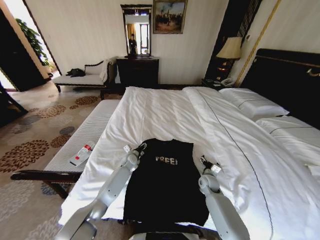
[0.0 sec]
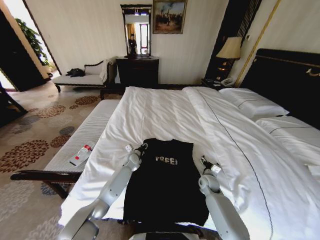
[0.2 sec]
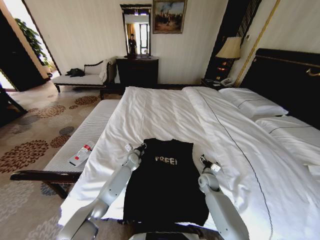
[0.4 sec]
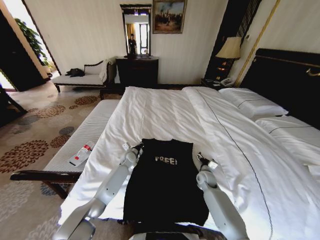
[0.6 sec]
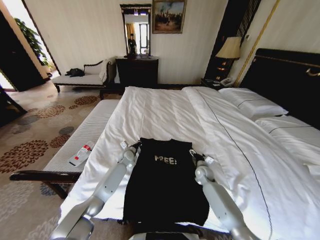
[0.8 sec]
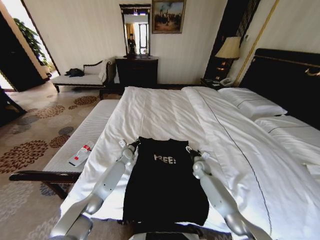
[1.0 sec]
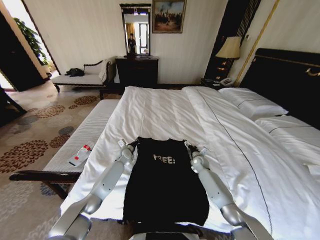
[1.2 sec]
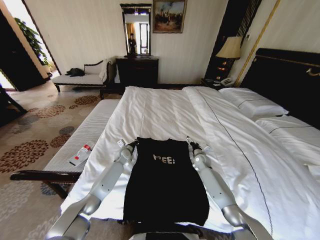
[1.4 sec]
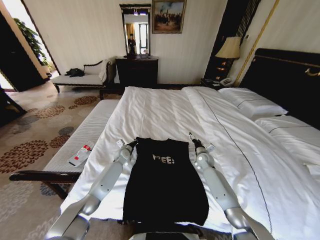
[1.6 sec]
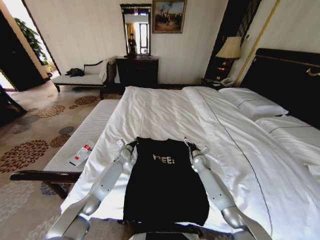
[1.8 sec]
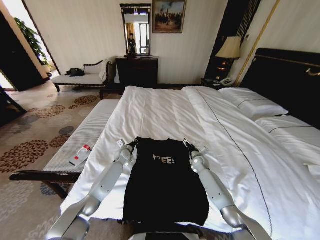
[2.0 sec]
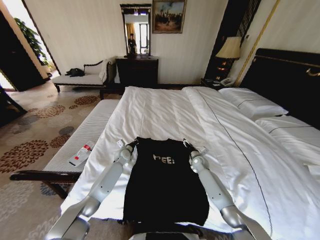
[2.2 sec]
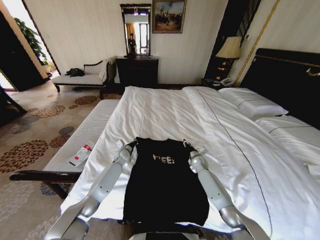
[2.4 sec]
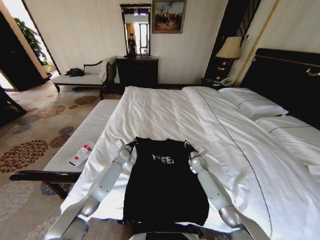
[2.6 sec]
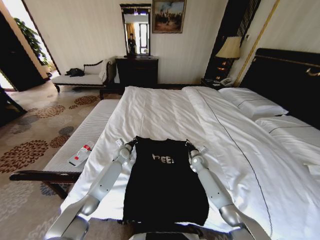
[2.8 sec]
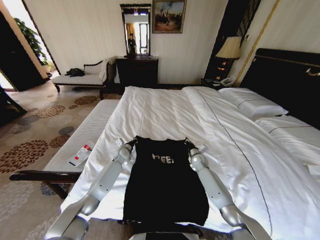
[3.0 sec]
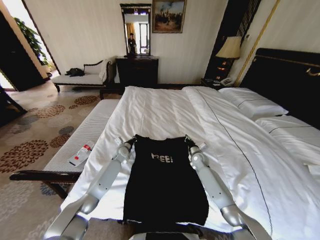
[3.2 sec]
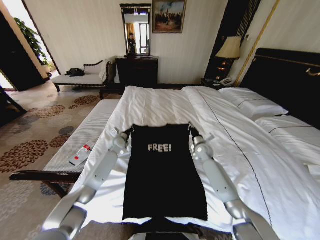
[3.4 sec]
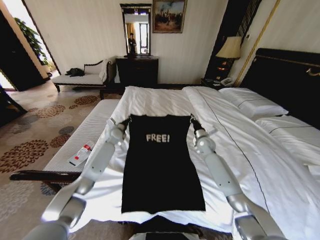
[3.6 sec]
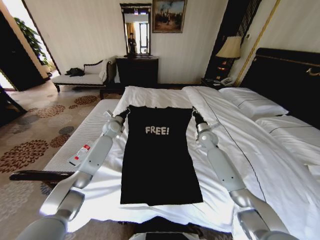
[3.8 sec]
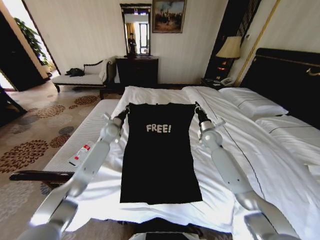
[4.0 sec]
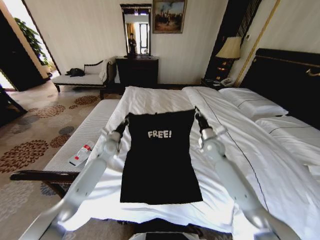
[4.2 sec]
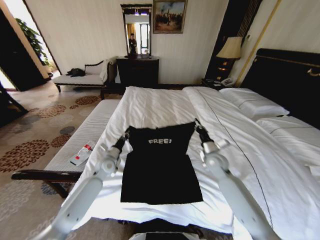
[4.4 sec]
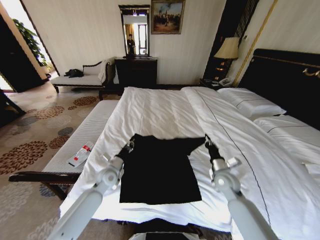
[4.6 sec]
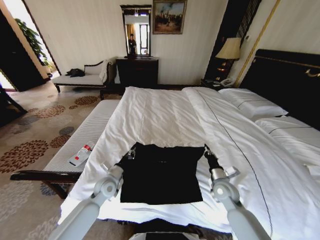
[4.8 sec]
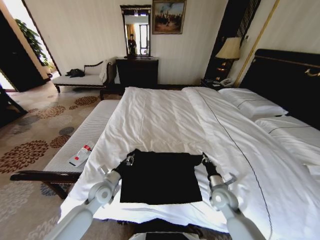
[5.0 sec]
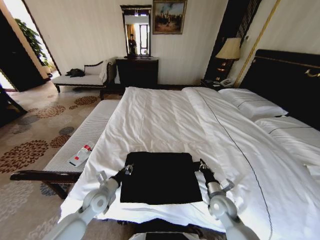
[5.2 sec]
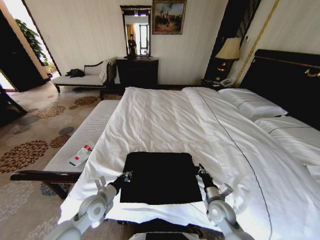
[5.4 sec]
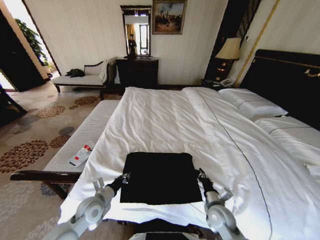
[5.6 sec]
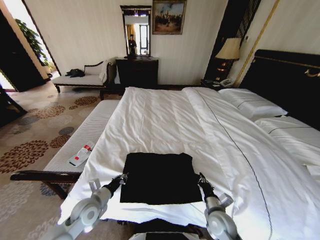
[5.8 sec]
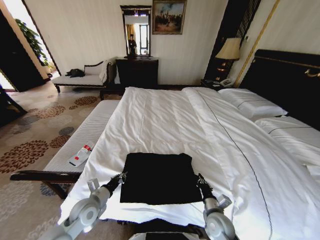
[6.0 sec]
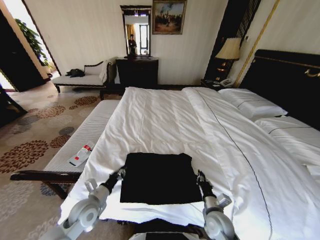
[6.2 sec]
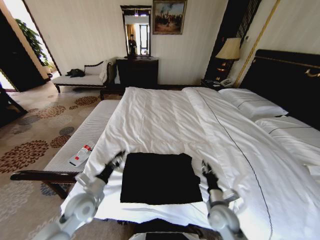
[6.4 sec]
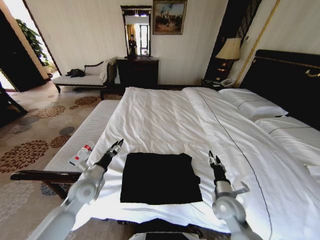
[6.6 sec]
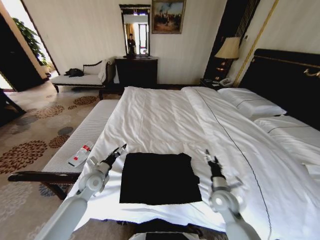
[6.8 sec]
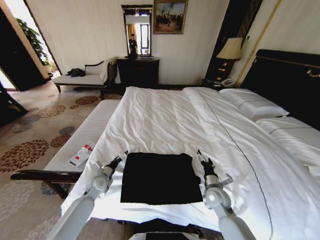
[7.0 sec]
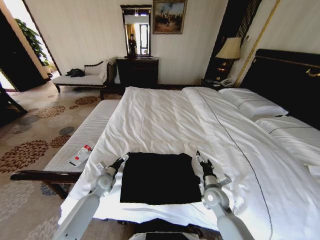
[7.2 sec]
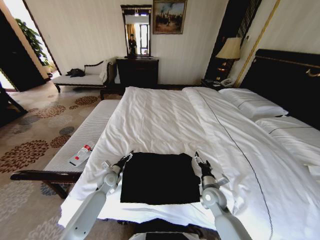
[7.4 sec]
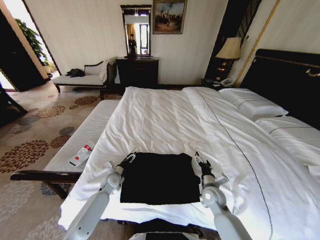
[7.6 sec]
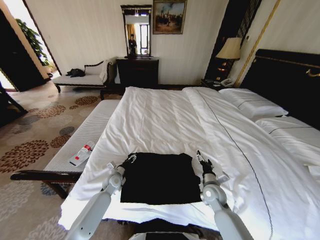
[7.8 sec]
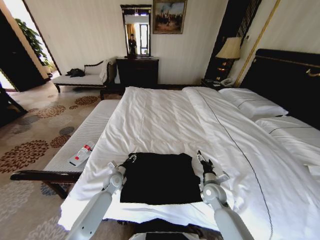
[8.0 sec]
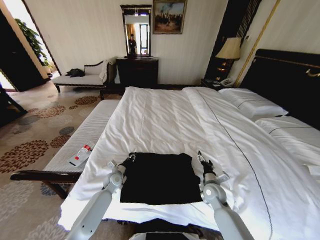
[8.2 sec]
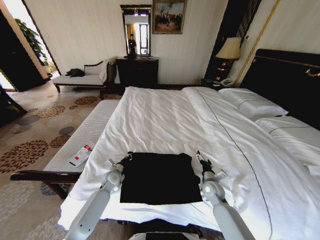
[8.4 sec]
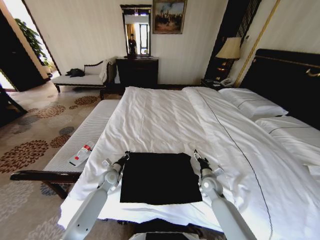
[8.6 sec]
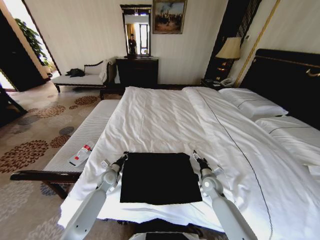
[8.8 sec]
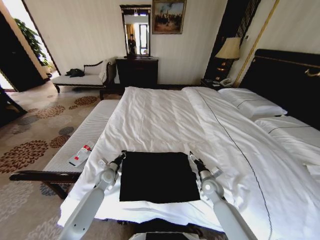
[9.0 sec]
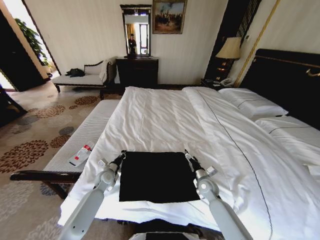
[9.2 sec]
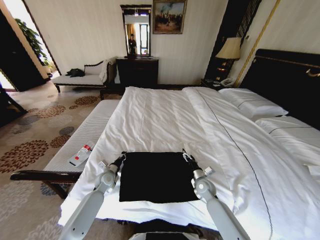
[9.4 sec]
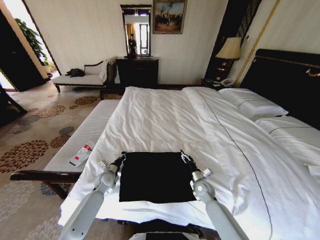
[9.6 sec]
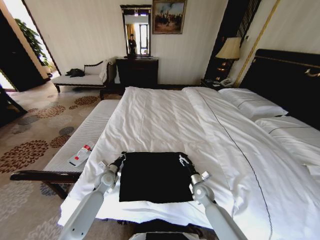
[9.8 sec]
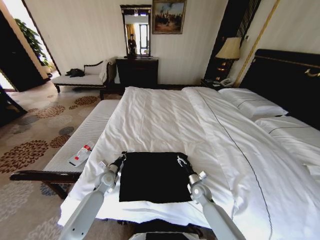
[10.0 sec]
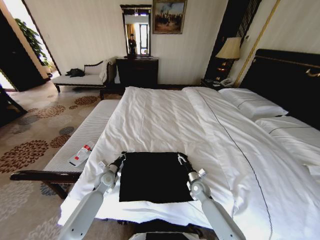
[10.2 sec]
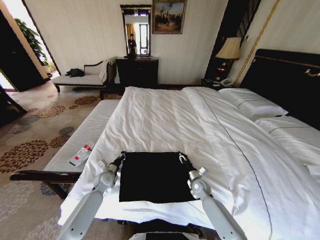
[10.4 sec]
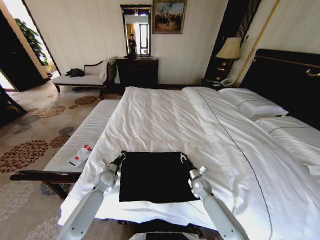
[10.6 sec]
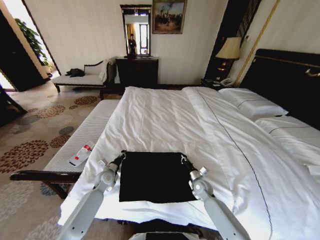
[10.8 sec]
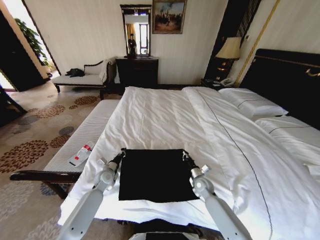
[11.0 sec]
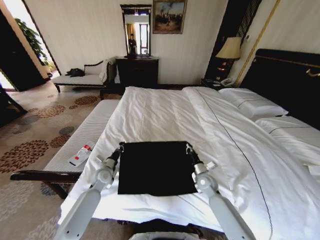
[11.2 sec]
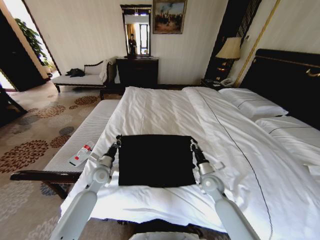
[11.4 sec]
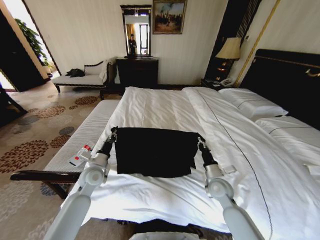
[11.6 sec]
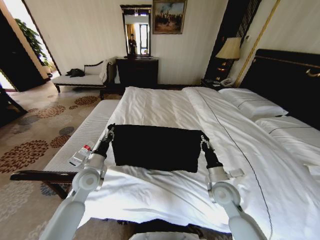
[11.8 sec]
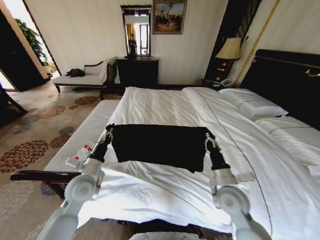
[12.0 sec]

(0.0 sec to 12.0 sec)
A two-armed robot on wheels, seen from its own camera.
Task of the whole recording: Fold the clothes on the bed.
0.0 sec - 1.6 sec: The right gripper moves forward, about 10 cm, while the left gripper changes place by some 5 cm, and closes.
1.6 sec - 3.0 sec: The right gripper closes up.
3.0 sec - 4.4 sec: The right gripper moves upward and backward, about 15 cm. The left gripper is displaced backward and to the left by about 10 cm.
4.4 sec - 6.0 sec: The right gripper travels backward and downward by approximately 25 cm; the left gripper shifts some 20 cm backward.
6.0 sec - 7.6 sec: The left gripper travels forward and downward by about 15 cm, and opens its fingers. Meanwhile the right gripper goes some 10 cm forward, and opens.
7.6 sec - 9.0 sec: The left gripper closes up, while the right gripper moves roughly 5 cm.
9.0 sec - 10.4 sec: The right gripper changes place by about 5 cm, and closes.
10.4 sec - 12.0 sec: The two grippers go roughly 20 cm upward and backward. The right gripper closes.

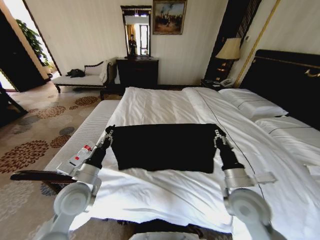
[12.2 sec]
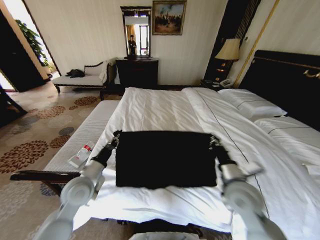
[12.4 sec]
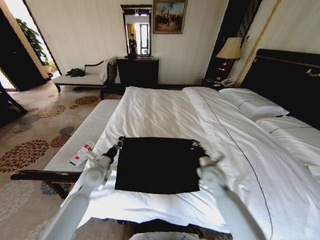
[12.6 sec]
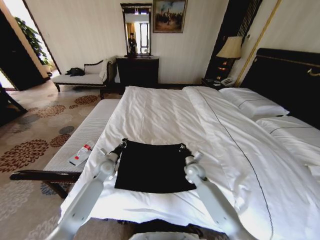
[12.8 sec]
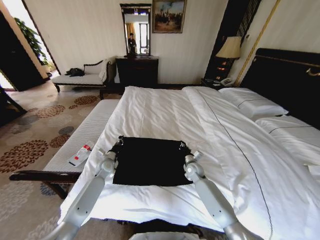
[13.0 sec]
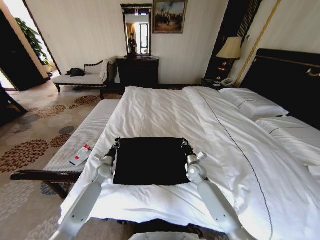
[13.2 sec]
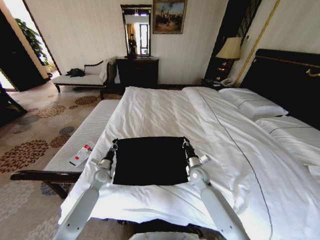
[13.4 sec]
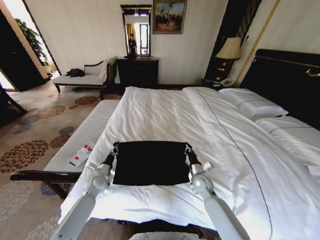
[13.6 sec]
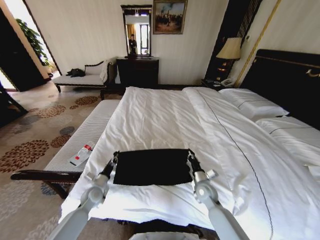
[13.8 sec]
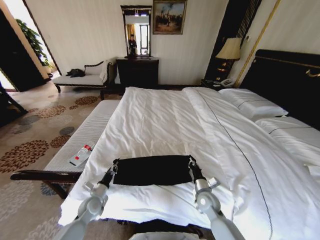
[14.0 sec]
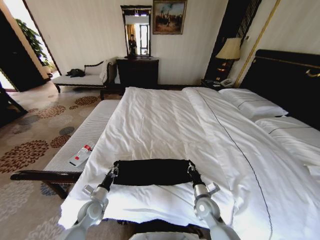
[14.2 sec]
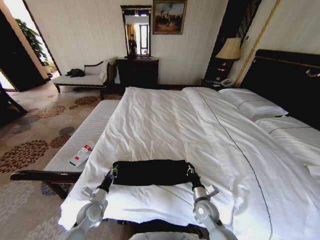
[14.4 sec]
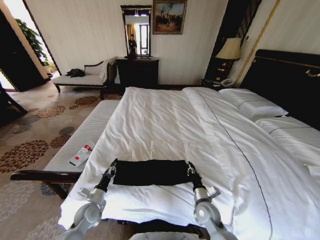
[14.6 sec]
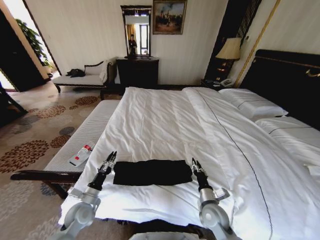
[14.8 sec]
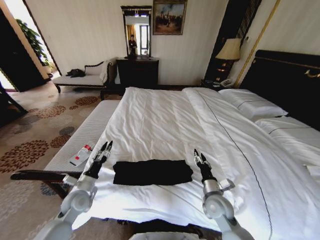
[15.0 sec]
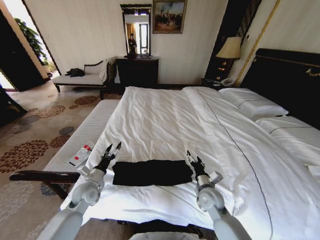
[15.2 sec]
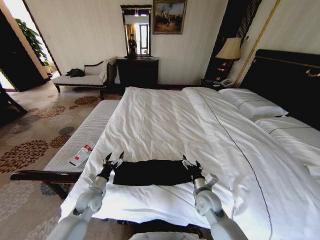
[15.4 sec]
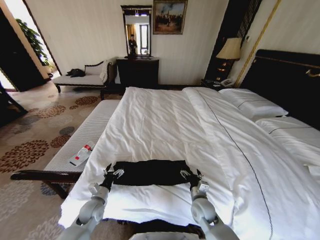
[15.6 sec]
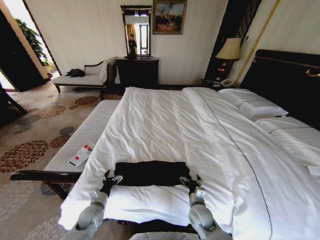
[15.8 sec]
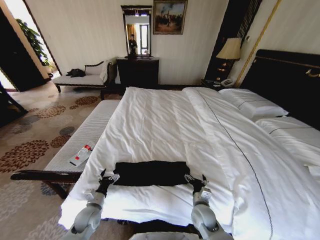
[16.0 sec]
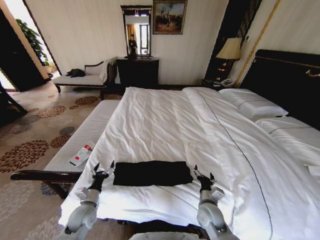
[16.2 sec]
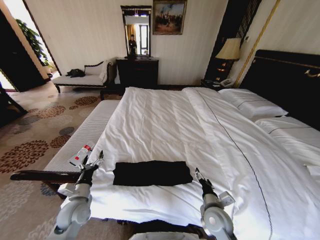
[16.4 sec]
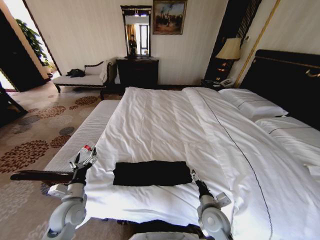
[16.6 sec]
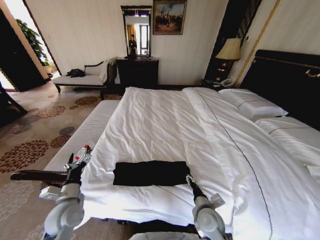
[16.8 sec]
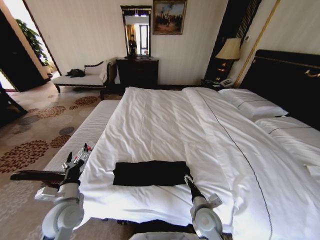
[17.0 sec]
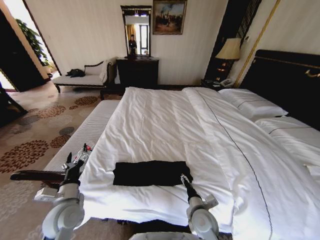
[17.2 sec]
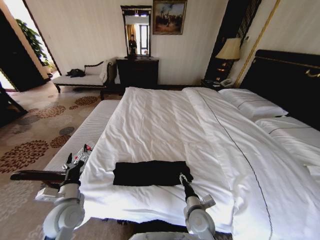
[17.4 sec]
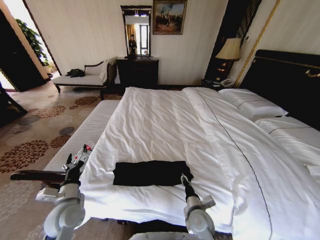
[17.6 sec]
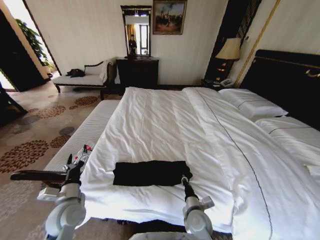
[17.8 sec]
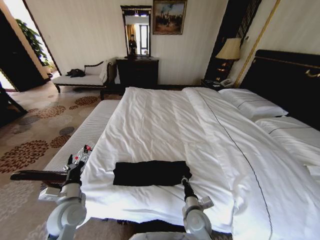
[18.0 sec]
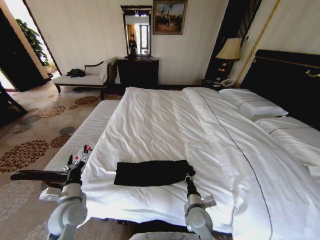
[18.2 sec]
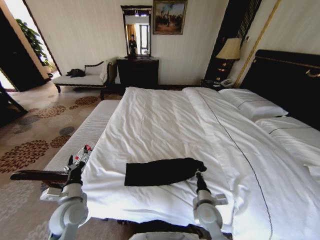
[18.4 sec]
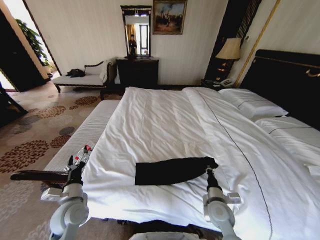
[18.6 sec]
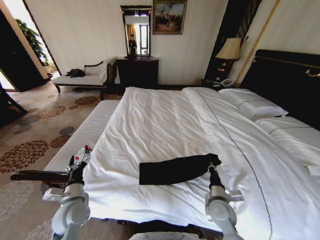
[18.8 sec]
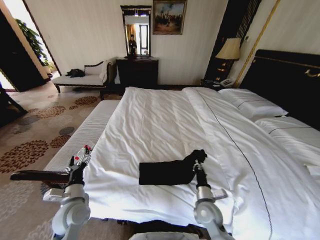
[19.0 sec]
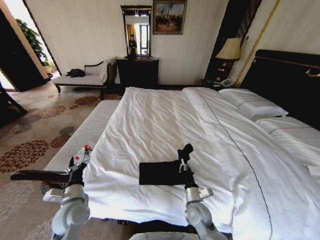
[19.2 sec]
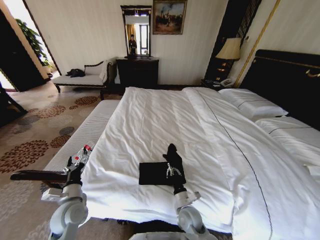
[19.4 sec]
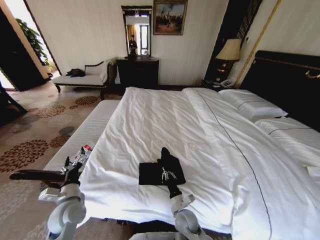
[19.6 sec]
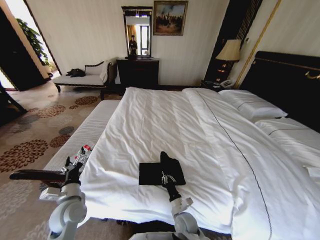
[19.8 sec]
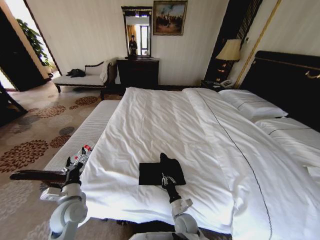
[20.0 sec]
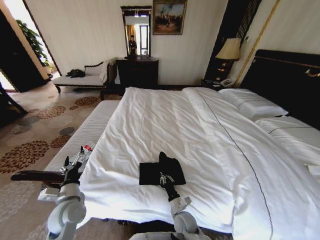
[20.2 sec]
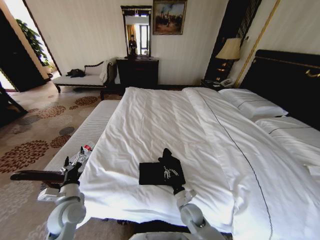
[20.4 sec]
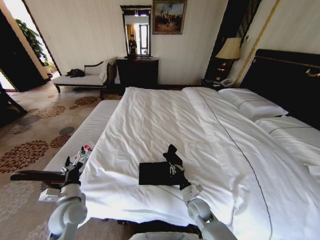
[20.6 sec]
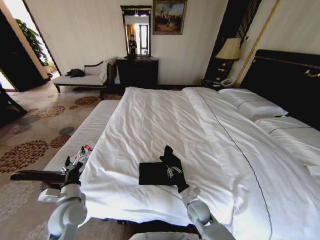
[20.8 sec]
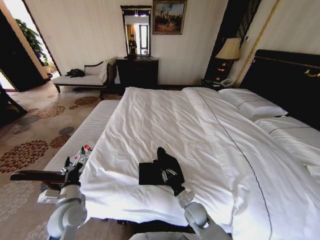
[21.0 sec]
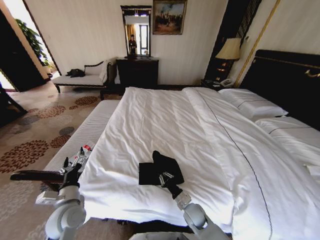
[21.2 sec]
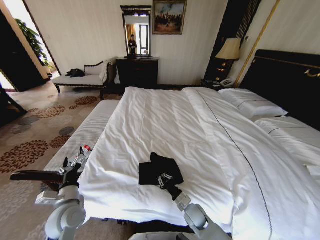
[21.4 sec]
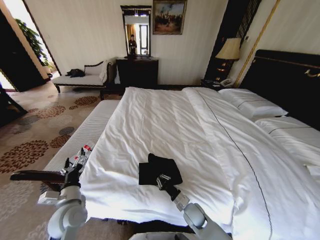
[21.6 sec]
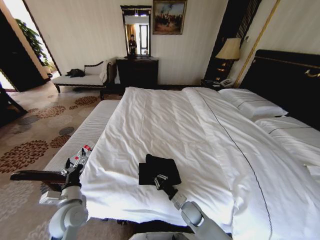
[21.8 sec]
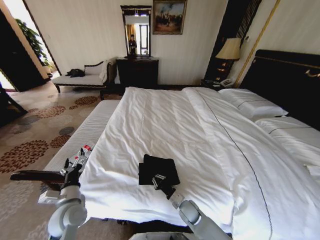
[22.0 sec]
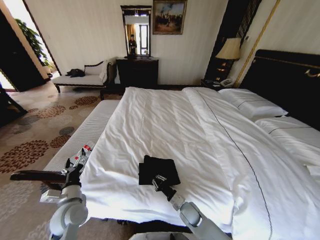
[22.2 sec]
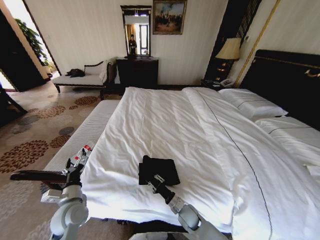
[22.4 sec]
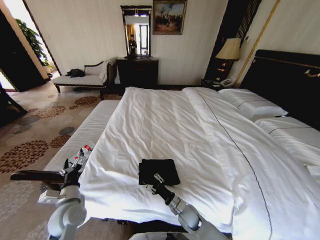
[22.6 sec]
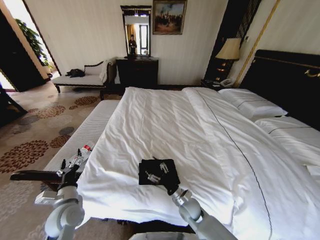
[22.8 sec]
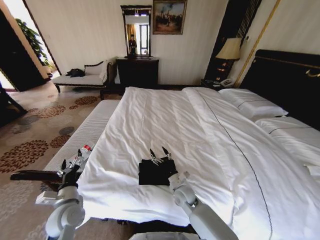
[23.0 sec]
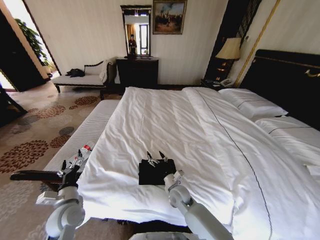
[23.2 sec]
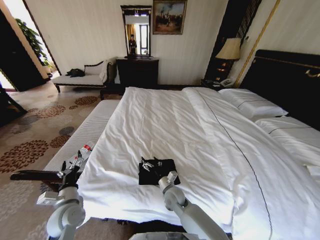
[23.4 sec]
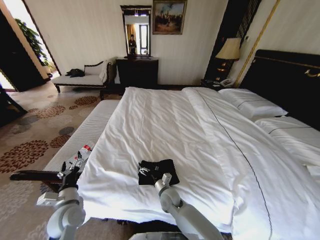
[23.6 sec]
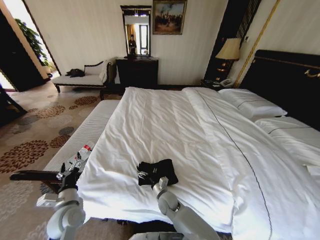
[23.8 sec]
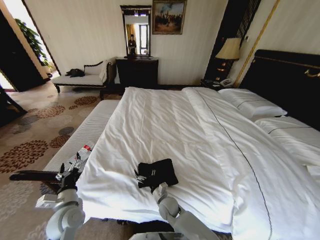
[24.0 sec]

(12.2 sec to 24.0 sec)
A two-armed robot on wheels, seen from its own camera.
Task of the whole recording: Fold the clothes on the bed.
12.2 sec - 13.6 sec: The grippers both shift downward and forward by about 25 cm.
13.6 sec - 15.2 sec: The left gripper heads upward and backward, covering approximately 10 cm, and opens up, while the right gripper heads backward, covering approximately 5 cm, and opens its fingers.
15.2 sec - 16.6 sec: The two grippers go roughly 10 cm backward. The right gripper goes downward and returns, about 10 cm each way; the left gripper reaches approximately 10 cm downward, then returns.
16.6 sec - 18.2 sec: The right gripper changes place by about 5 cm, and closes up.
19.6 sec - 21.0 sec: The right gripper moves some 5 cm.
21.0 sec - 22.6 sec: The right gripper opens up.
22.6 sec - 24.0 sec: The right gripper is displaced to the left by roughly 10 cm, and opens its fingers.
